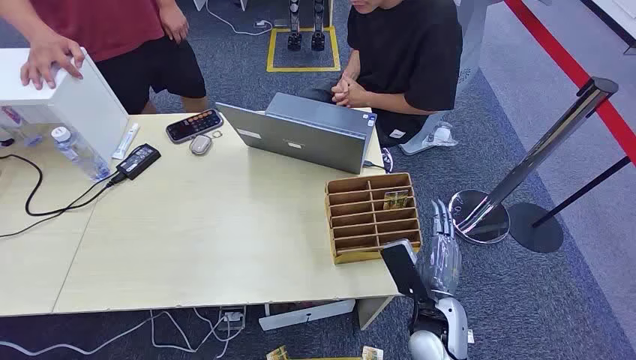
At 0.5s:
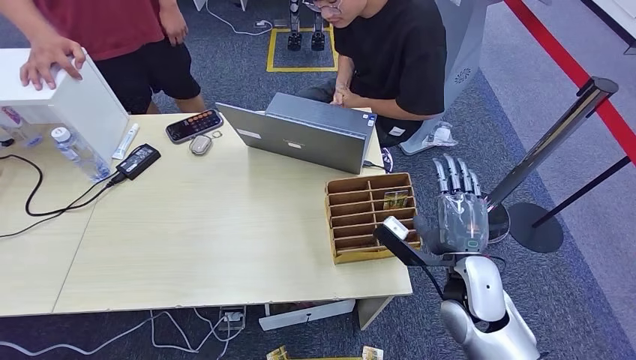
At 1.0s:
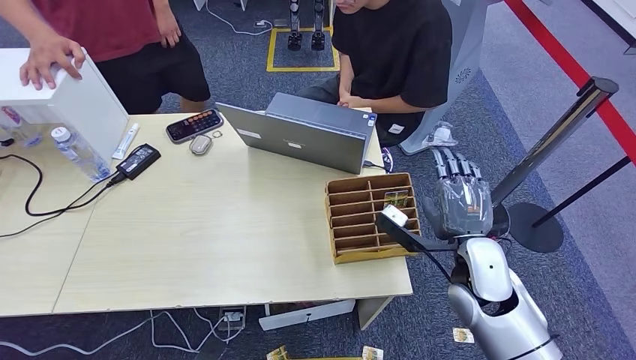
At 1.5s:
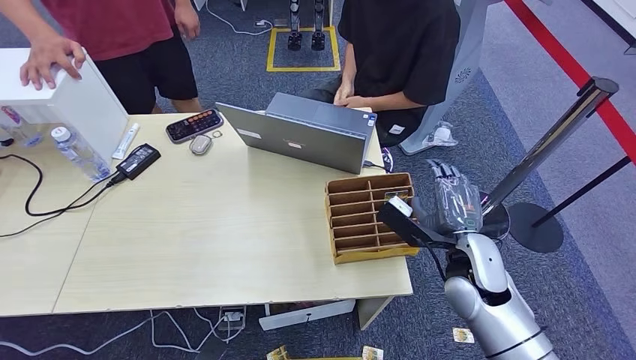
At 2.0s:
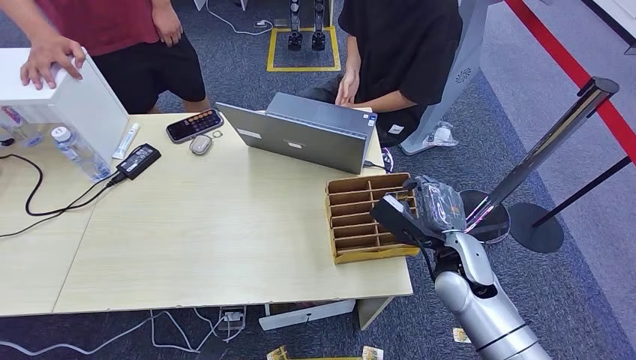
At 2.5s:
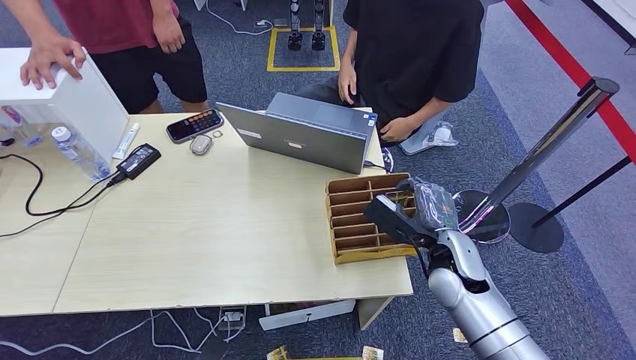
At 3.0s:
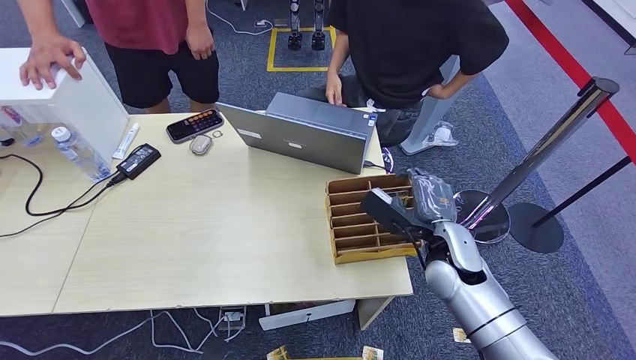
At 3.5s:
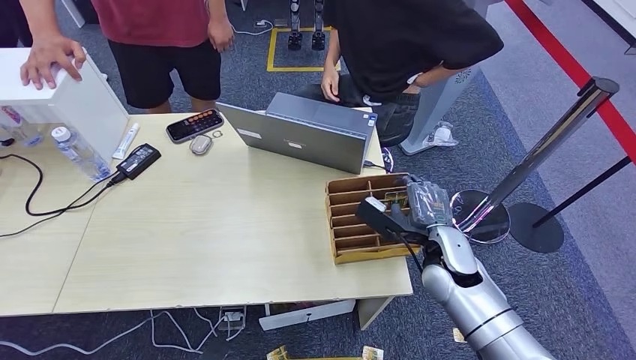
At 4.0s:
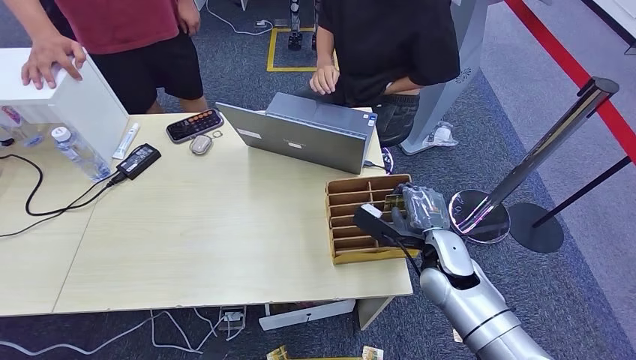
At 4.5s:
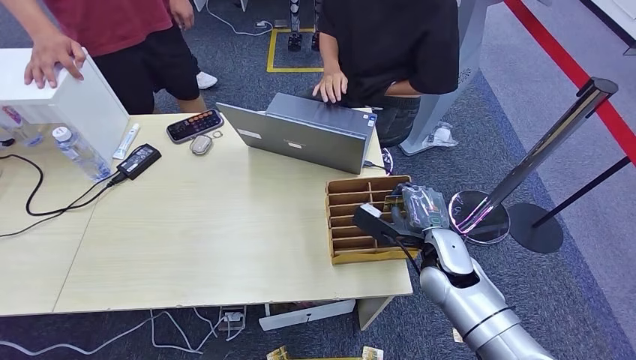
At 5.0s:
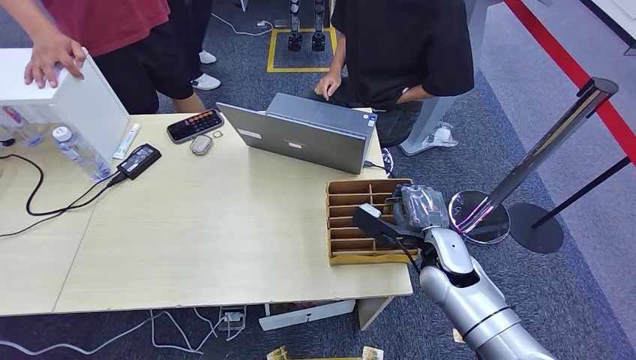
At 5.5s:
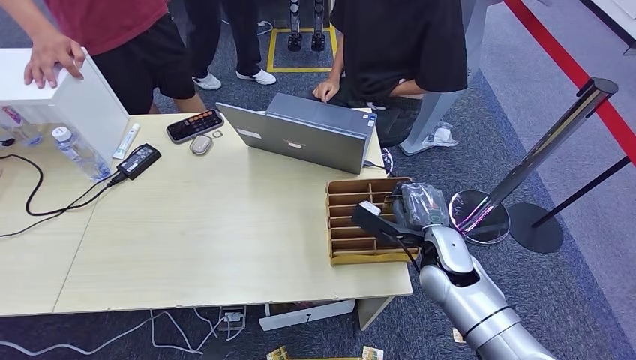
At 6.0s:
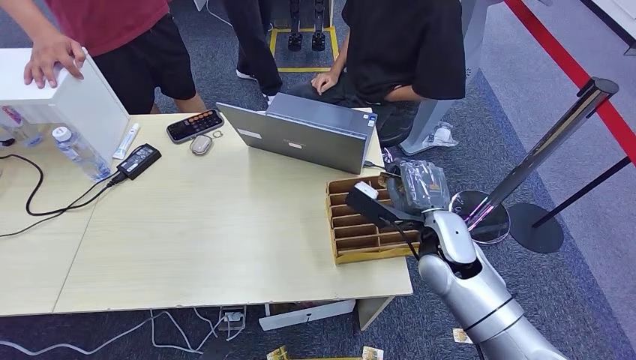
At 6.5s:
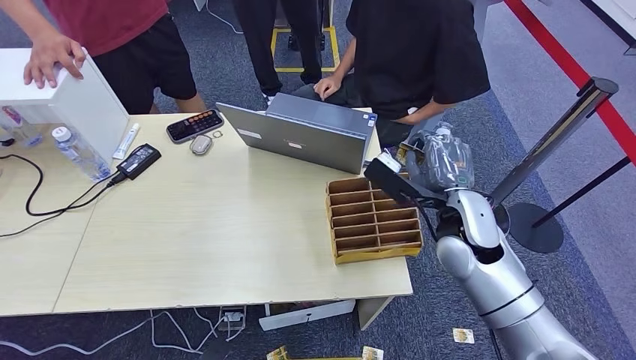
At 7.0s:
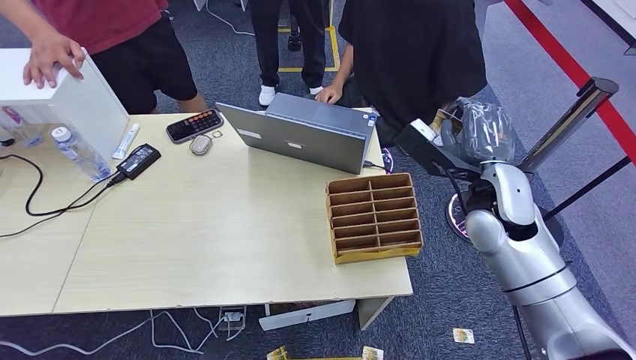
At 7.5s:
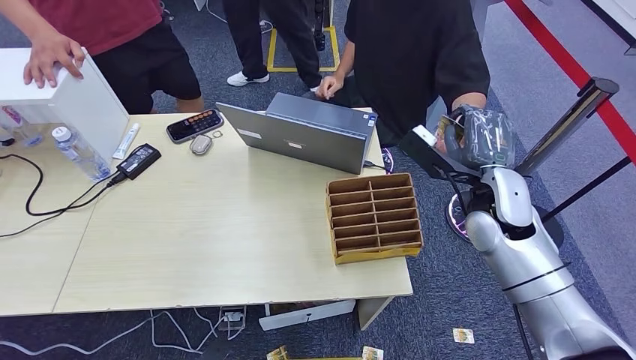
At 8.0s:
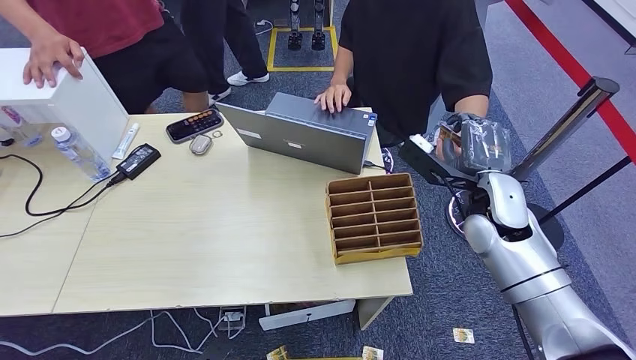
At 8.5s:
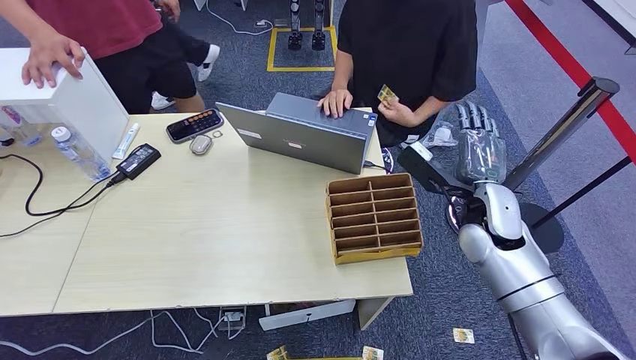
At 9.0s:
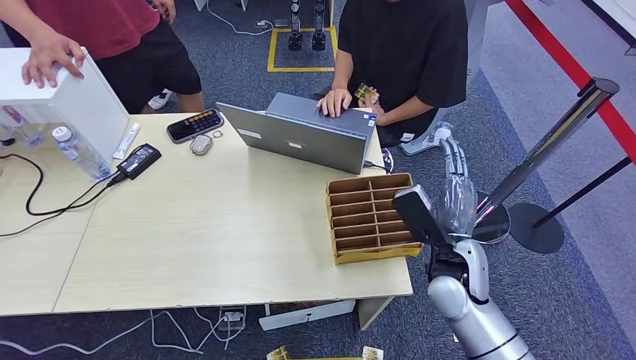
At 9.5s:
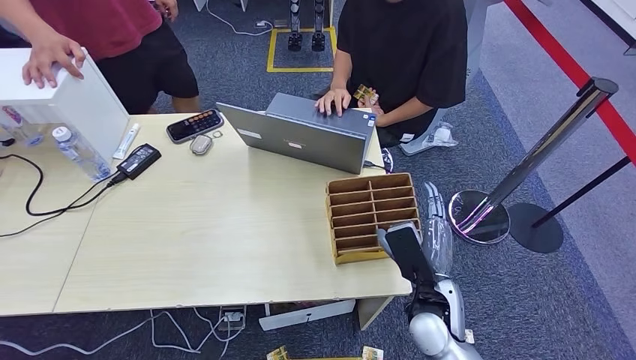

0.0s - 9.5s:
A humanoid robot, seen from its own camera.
Step, 0.0s - 6.0s: Pick up the room card from the card holder.
Step, 6.5s - 9.5s: Hand the room card to the target.
2.0s - 4.0s: There are only small adjustments of the hands.
4.0s - 5.5s: Neither hand changes place.
5.5s - 7.5s: The right hand shifts approximately 15 cm upward and to the right.
7.5s - 9.5s: The right hand goes about 20 cm downward, backward and to the left.
